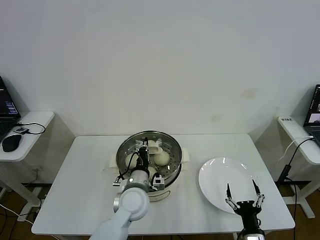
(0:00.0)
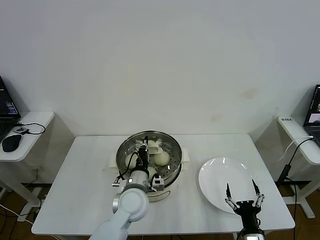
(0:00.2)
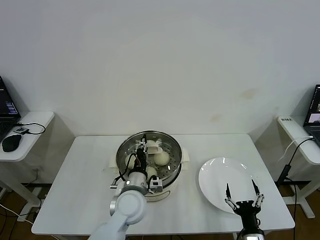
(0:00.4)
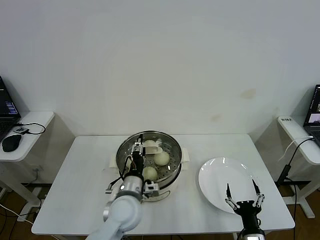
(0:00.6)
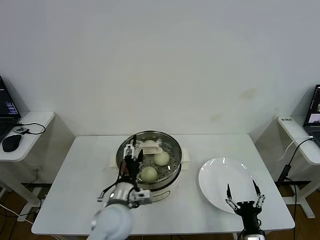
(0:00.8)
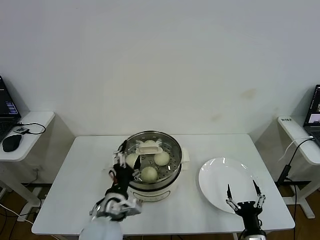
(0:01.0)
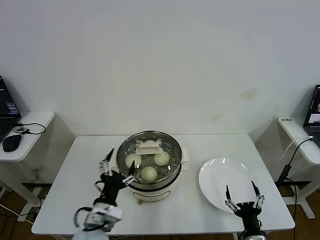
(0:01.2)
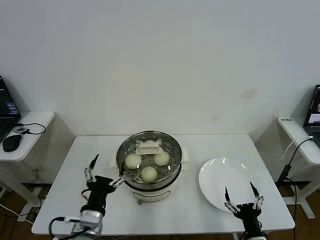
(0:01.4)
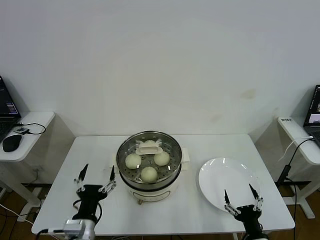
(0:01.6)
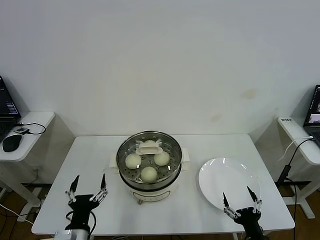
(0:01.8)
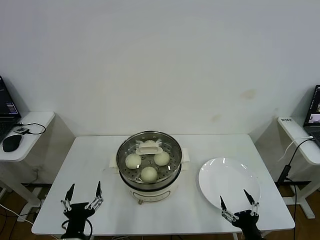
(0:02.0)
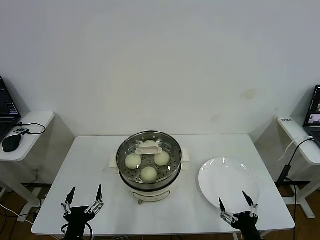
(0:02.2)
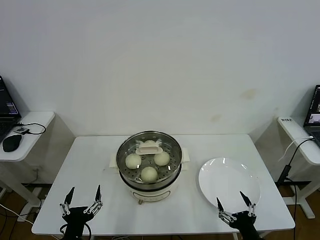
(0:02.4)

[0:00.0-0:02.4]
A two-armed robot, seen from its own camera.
0:00.0 to 0:01.2: The left gripper shifts roughly 15 cm backward and to the left, and opens up.
0:01.2 to 0:02.4: The left gripper is displaced backward, to the left and downward by approximately 15 cm.

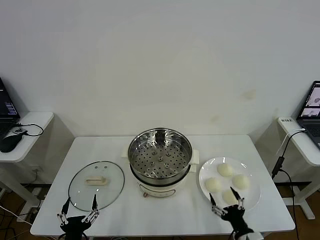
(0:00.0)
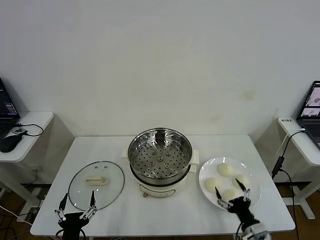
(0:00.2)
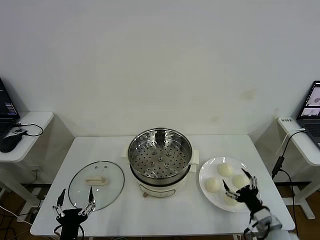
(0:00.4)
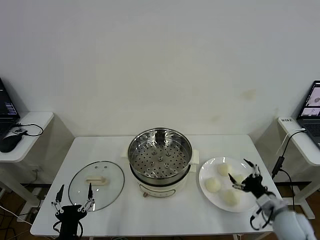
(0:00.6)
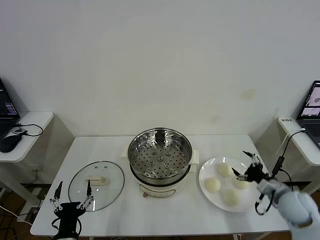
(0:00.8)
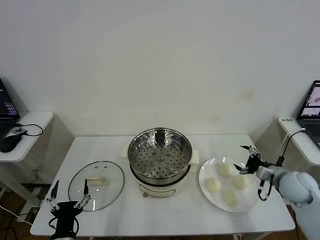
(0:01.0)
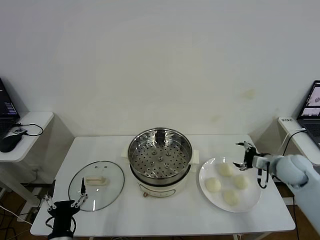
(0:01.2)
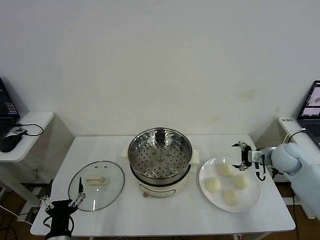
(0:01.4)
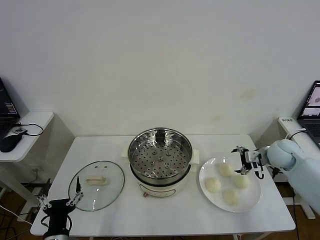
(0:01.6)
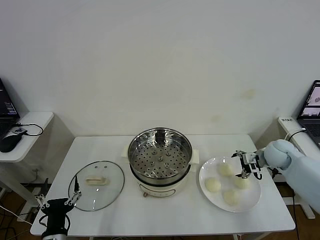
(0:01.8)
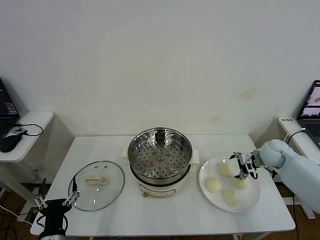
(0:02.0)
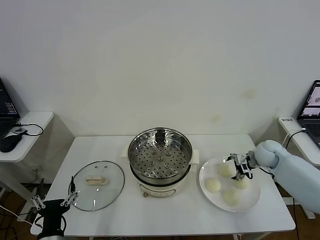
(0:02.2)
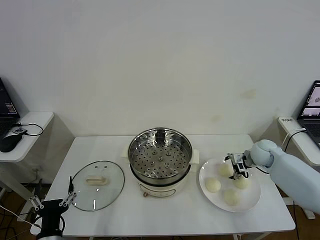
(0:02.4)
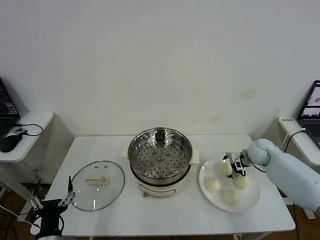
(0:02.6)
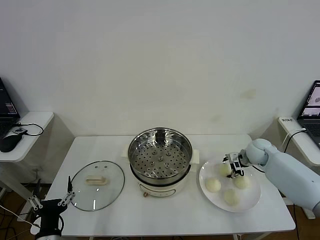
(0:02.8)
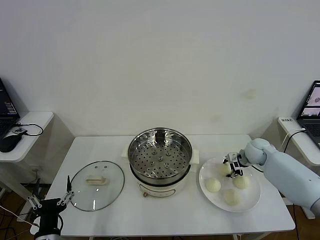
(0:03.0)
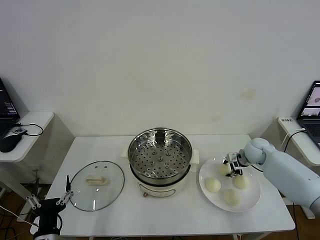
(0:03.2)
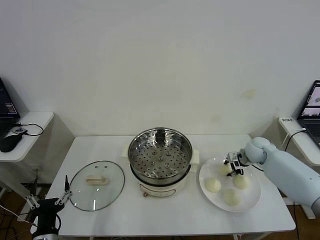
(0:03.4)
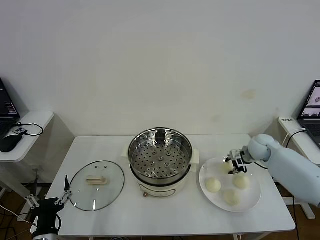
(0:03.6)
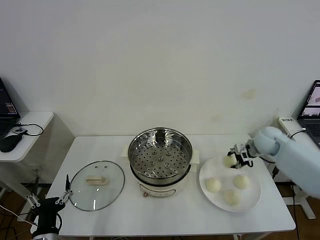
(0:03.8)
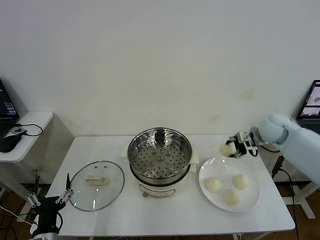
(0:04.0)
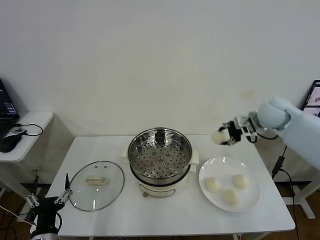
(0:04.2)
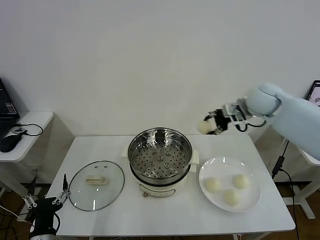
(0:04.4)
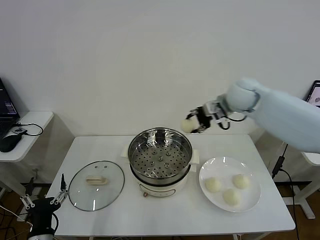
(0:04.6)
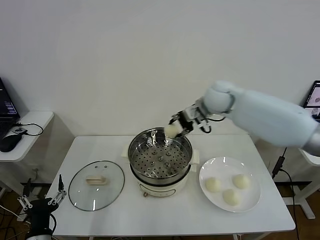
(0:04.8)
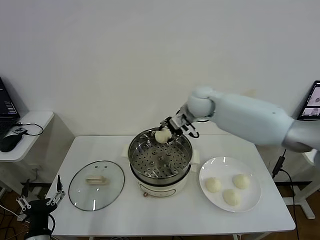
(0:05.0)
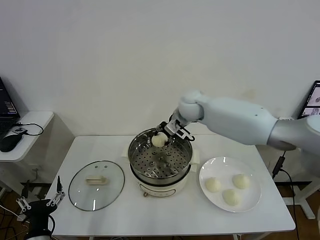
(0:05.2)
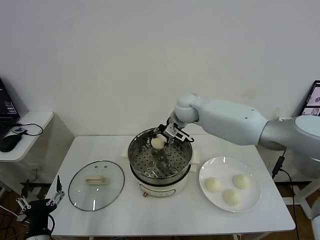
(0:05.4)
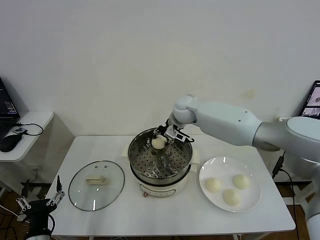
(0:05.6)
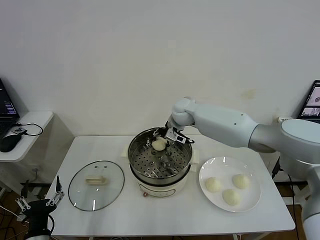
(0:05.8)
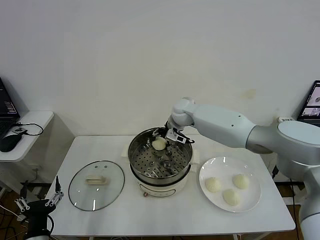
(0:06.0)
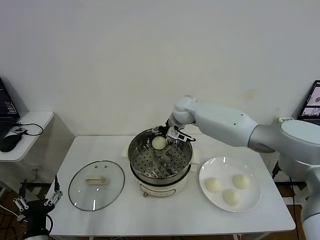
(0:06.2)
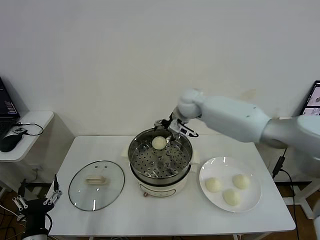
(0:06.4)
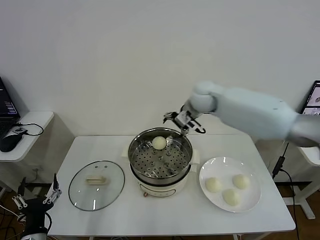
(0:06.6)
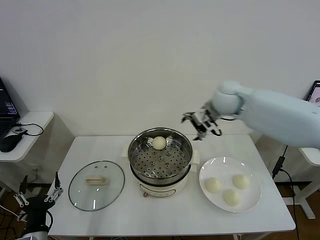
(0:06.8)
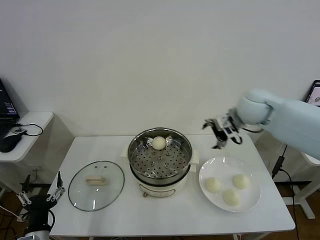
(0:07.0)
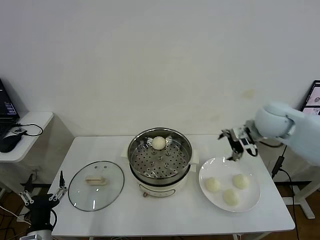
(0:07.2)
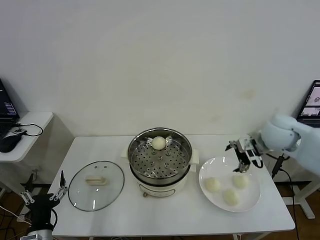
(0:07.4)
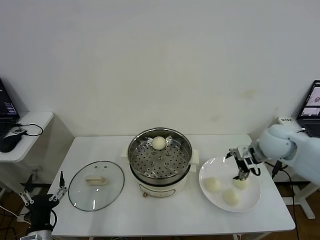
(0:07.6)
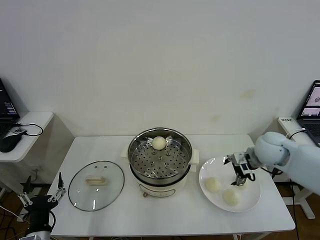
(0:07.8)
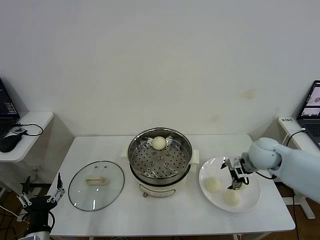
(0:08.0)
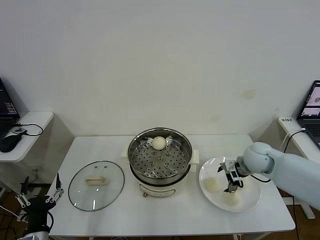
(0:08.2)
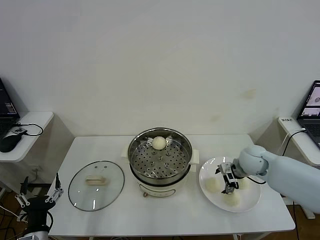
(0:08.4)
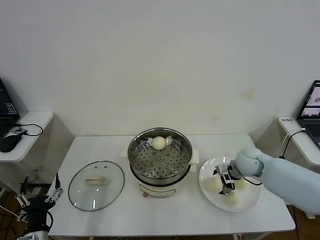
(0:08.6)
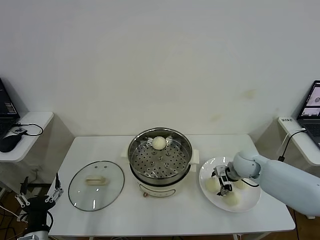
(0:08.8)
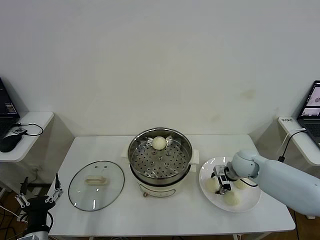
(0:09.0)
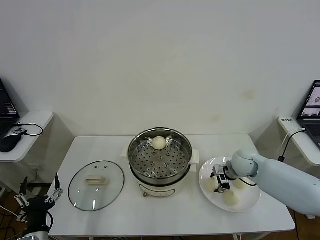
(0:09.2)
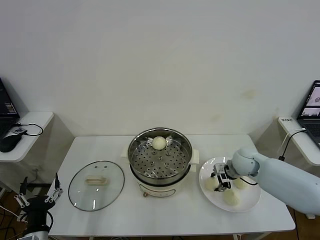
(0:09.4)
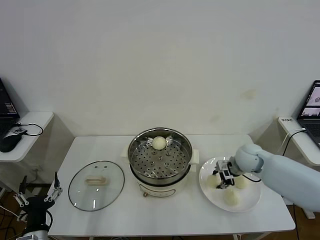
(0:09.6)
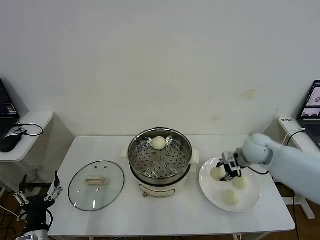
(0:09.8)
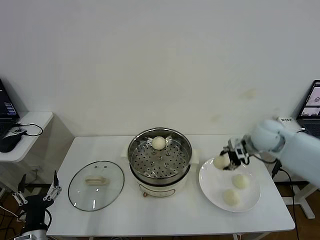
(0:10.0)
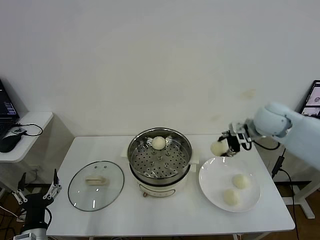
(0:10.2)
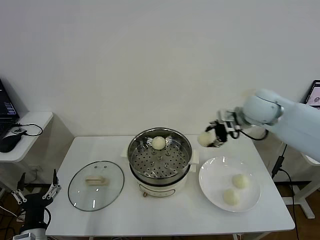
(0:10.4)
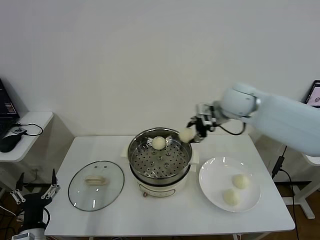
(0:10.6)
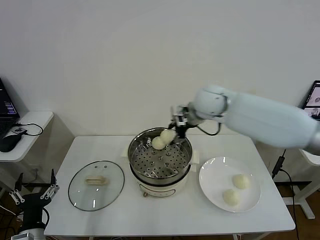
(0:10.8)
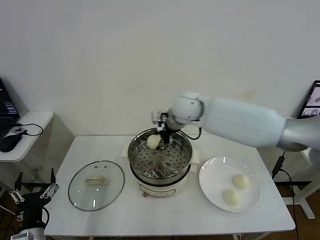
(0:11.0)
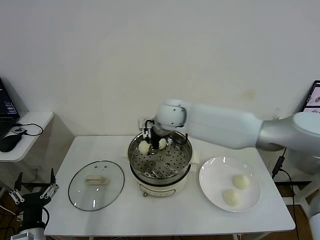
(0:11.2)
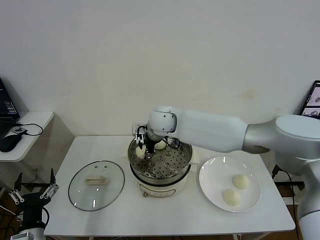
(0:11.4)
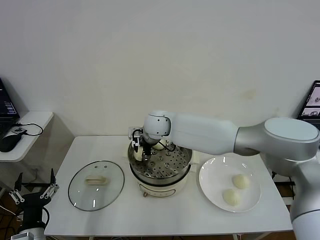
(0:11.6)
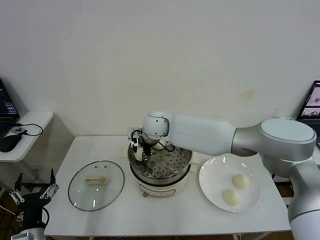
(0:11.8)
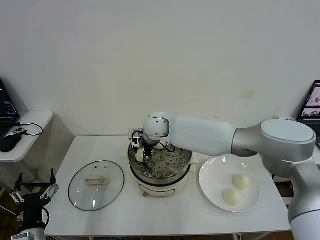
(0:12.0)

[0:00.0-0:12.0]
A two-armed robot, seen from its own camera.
Step, 0:00.0 to 0:03.0: Grasp the baozi in the plate with right gripper.
Step, 0:03.2 to 0:06.0: Place the baozi on the steamer with right gripper.
Step, 0:06.4 to 0:09.2: Grasp the baozi in the plate with right gripper.
0:01.6 to 0:03.0: The right gripper travels forward by approximately 5 cm, and closes its fingers.
0:03.0 to 0:04.4: The right gripper is displaced upward and to the left by about 25 cm.
0:04.4 to 0:06.0: The right gripper is displaced to the left and downward by about 20 cm, and opens.
0:06.0 to 0:07.6: The right gripper moves to the right and backward, approximately 30 cm.
0:07.6 to 0:09.0: The right gripper heads downward, covering some 10 cm, and closes its fingers.
0:09.0 to 0:10.4: The right gripper moves upward, some 25 cm.
0:10.4 to 0:12.0: The right gripper goes roughly 30 cm to the left and downward, and opens.

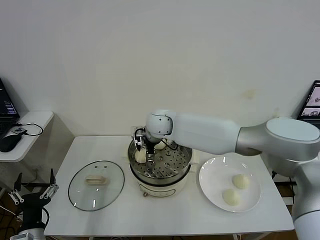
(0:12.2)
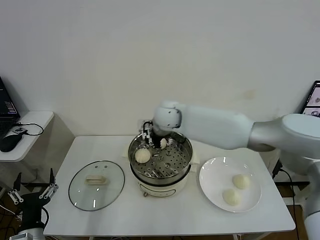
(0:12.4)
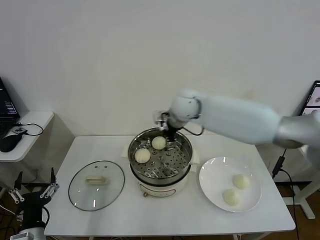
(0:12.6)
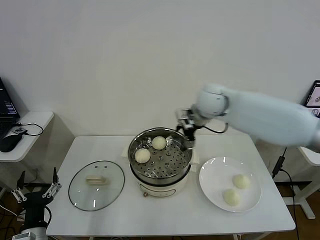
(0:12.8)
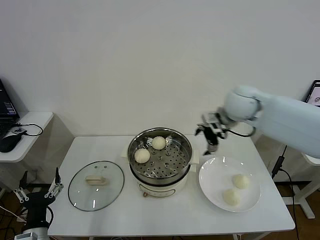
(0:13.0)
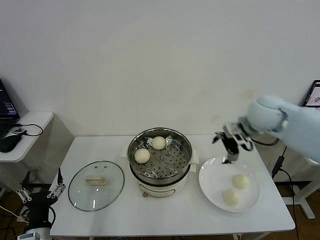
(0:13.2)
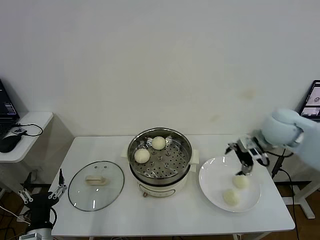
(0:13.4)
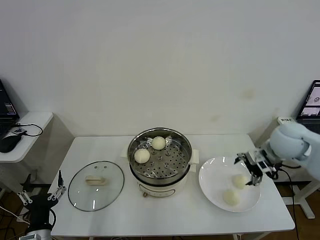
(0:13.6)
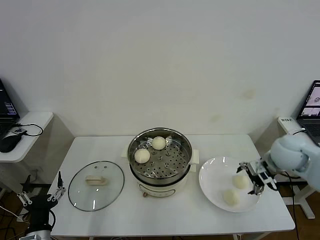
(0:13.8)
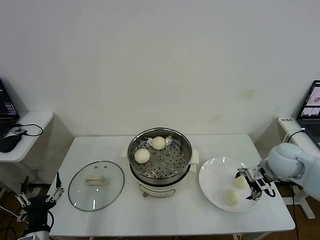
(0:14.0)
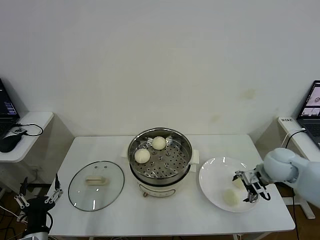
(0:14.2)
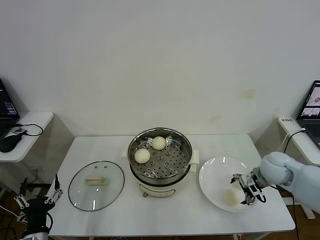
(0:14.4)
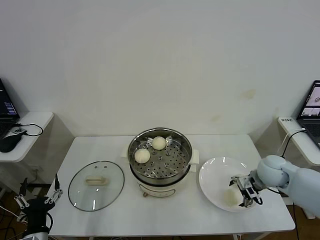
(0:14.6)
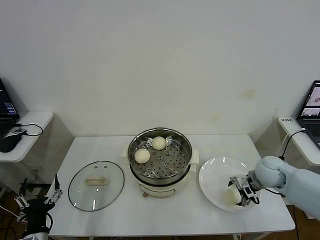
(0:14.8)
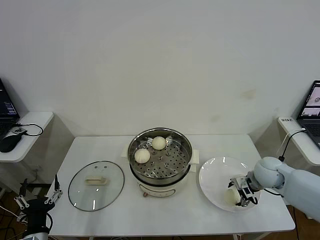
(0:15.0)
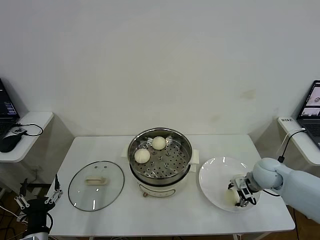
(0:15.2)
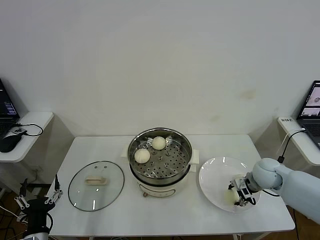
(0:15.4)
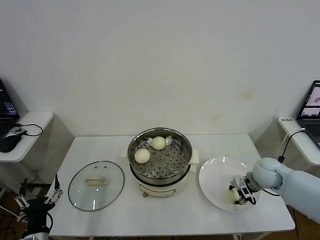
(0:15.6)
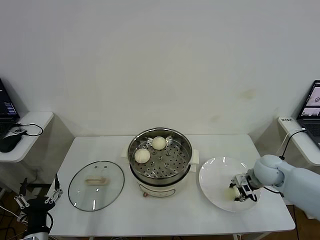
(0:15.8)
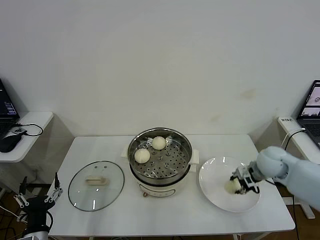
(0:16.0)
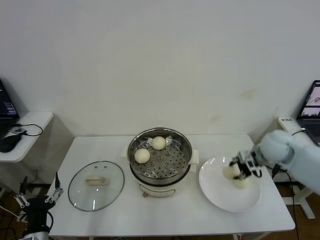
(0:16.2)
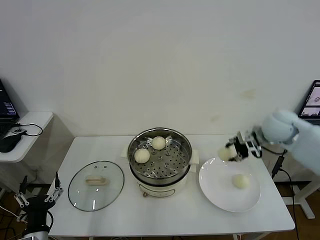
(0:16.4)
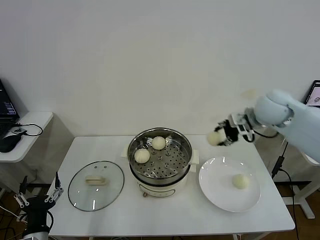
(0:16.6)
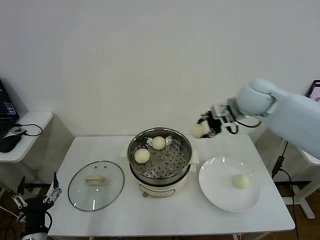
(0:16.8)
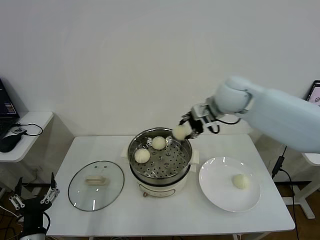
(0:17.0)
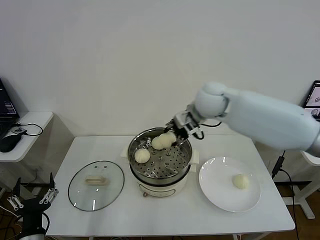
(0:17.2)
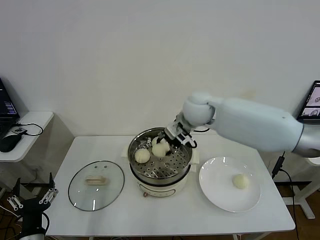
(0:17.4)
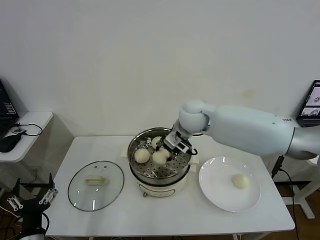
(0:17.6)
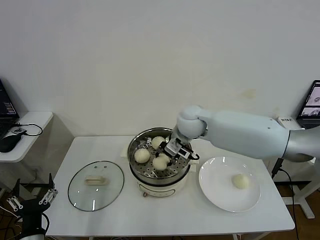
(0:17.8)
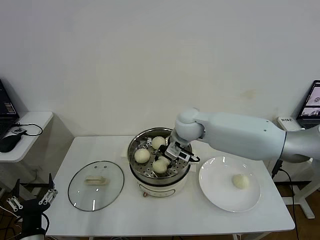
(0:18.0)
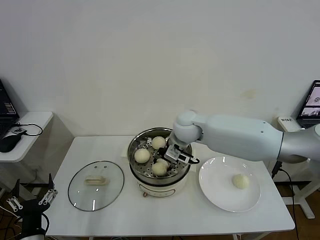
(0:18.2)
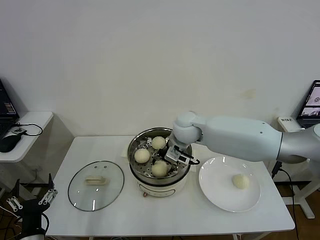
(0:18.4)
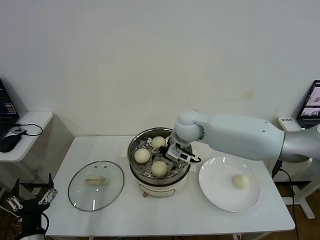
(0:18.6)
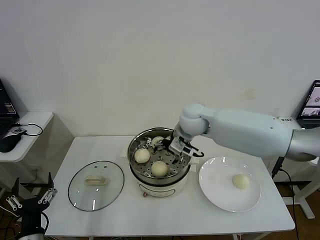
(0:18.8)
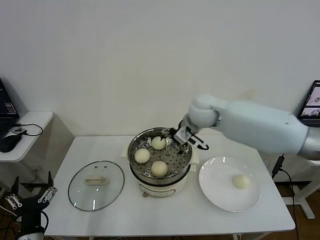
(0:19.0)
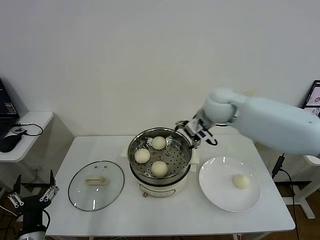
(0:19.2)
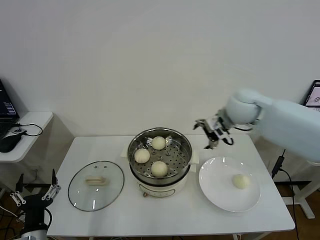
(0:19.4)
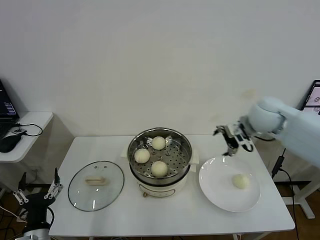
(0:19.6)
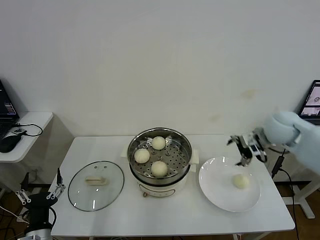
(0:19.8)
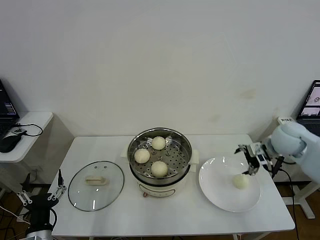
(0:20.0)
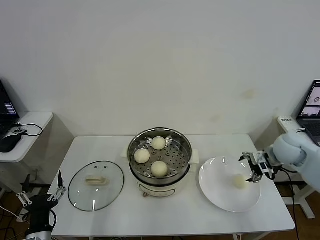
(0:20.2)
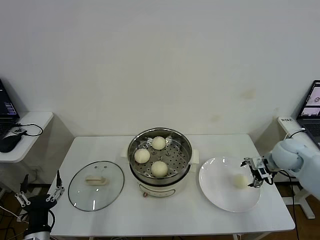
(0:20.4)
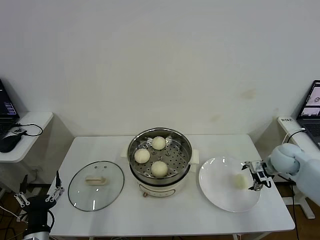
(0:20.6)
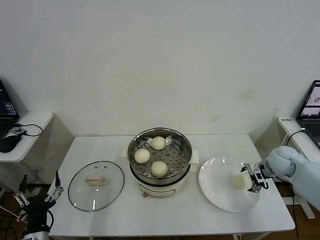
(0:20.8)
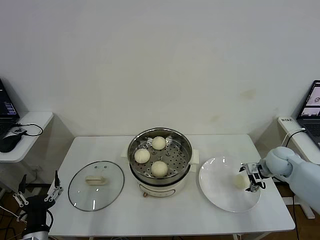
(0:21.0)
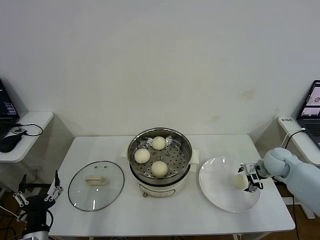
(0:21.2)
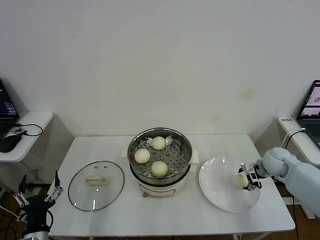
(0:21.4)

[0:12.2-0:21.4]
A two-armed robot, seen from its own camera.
Step, 0:12.4 to 0:15.6: Grasp the baozi in the plate with right gripper.
Step, 0:15.8 to 0:18.4: Place the baozi on the steamer with right gripper.
0:12.2 to 0:13.8: The right gripper shifts roughly 35 cm to the right.
0:13.8 to 0:15.2: The right gripper goes roughly 10 cm downward, and closes.
0:15.2 to 0:16.8: The right gripper is displaced upward and to the left by roughly 30 cm, and closes up.
0:16.8 to 0:18.4: The right gripper goes roughly 20 cm to the left and downward, and opens.
0:18.4 to 0:19.8: The right gripper heads to the right, covering approximately 30 cm.
0:19.8 to 0:21.4: The right gripper goes about 15 cm downward.
